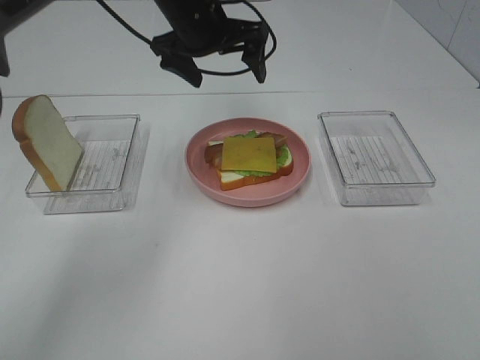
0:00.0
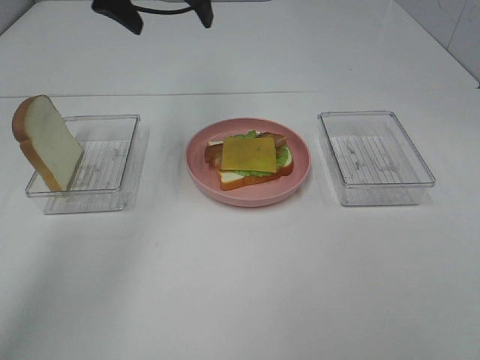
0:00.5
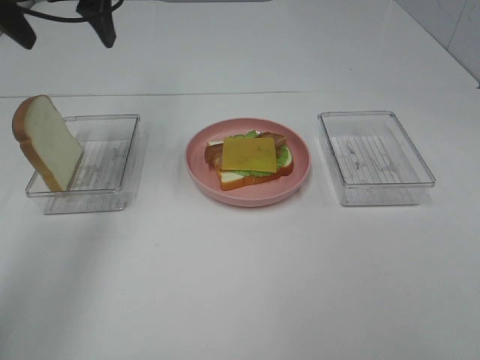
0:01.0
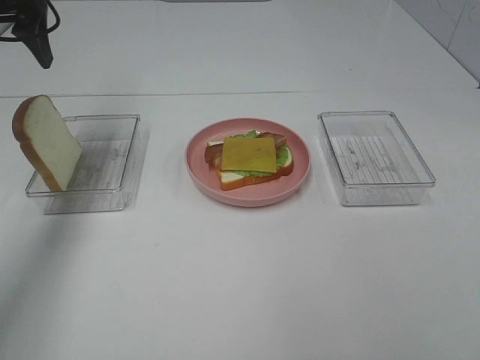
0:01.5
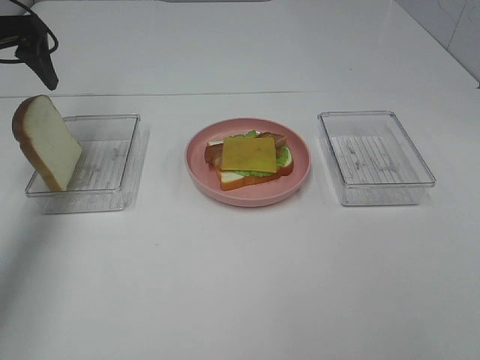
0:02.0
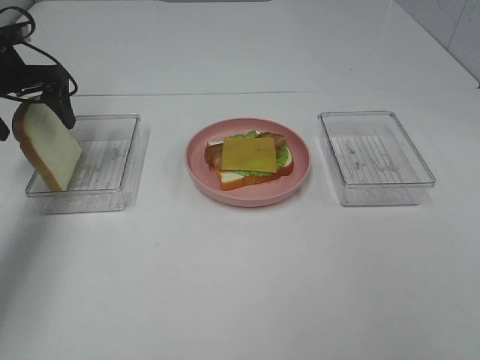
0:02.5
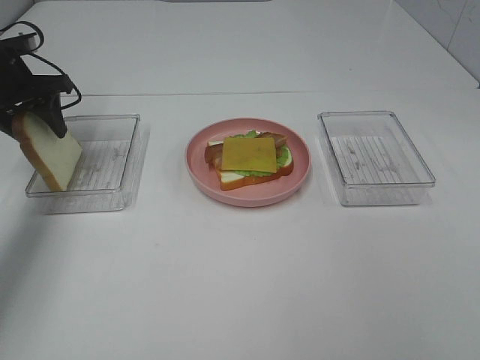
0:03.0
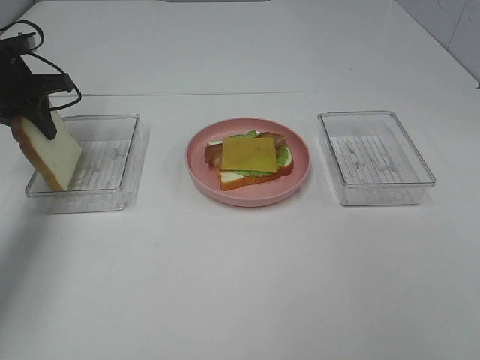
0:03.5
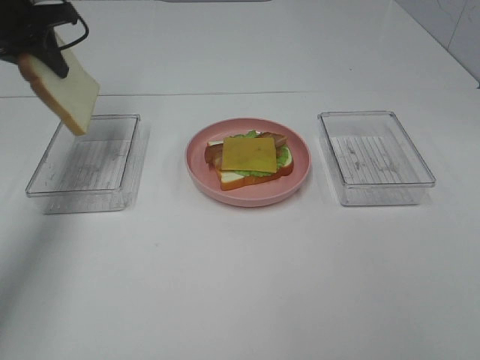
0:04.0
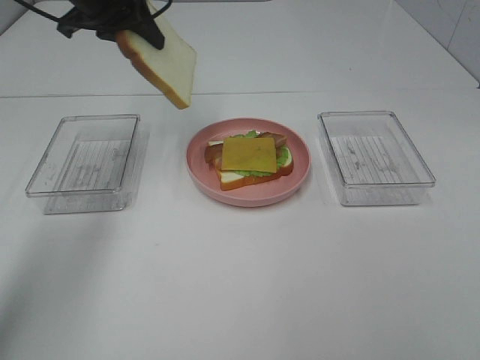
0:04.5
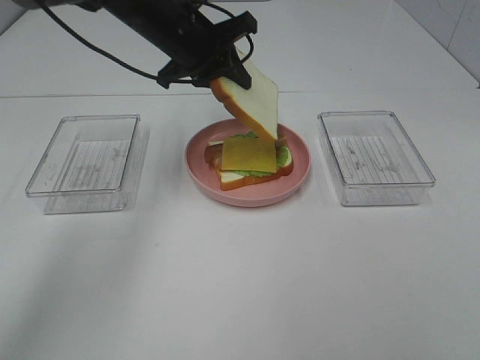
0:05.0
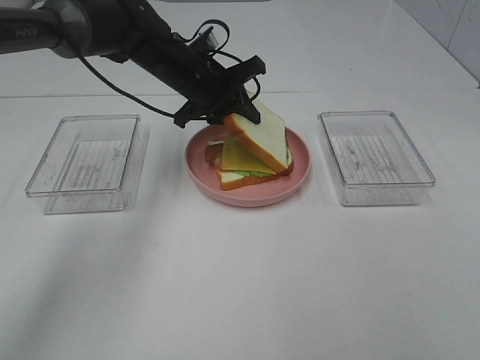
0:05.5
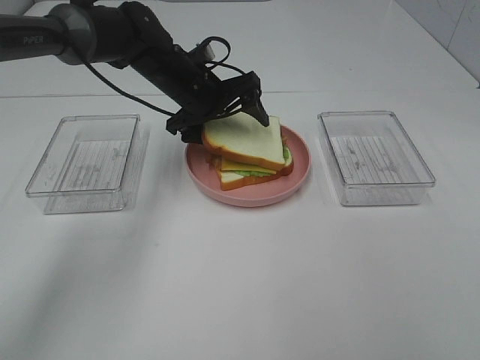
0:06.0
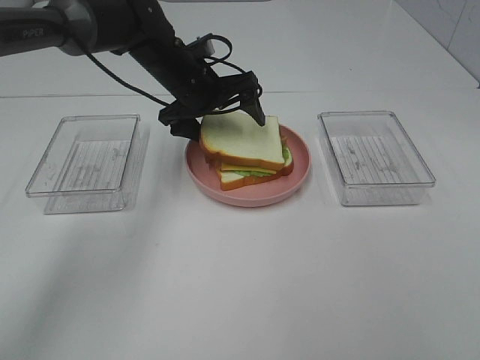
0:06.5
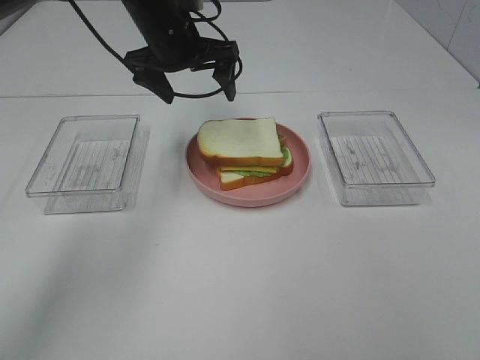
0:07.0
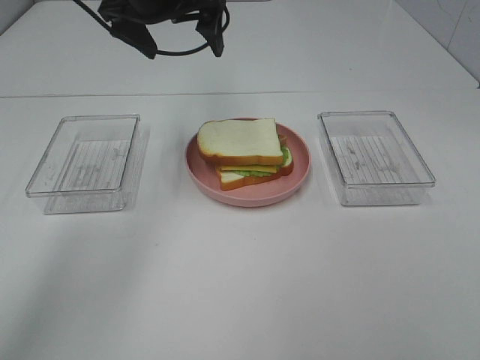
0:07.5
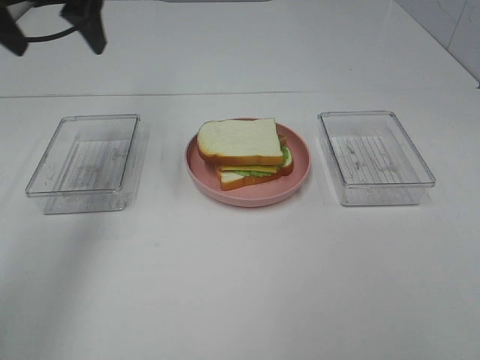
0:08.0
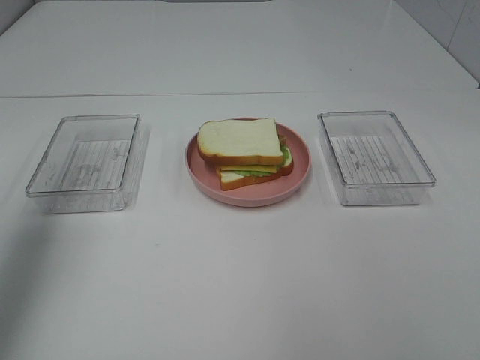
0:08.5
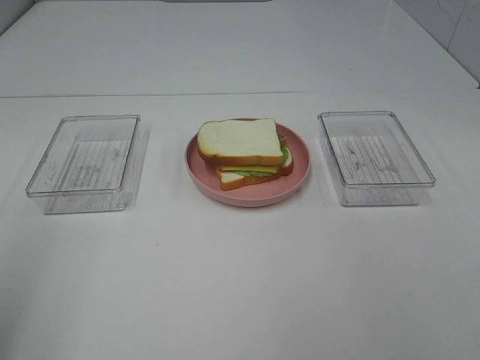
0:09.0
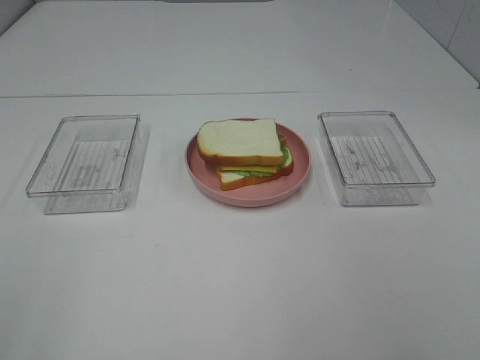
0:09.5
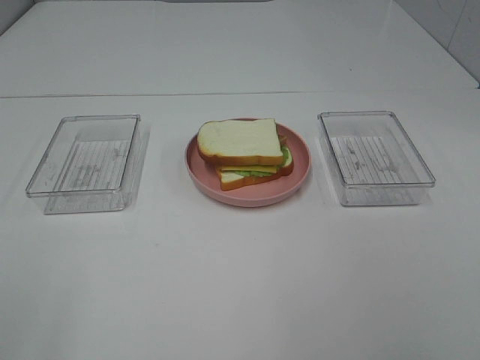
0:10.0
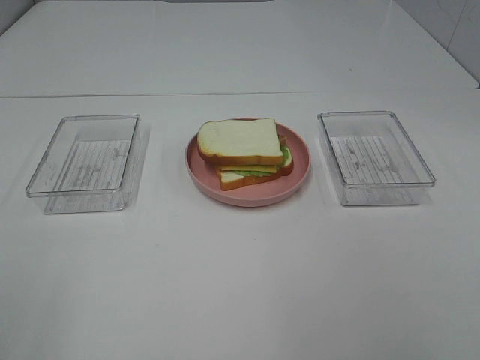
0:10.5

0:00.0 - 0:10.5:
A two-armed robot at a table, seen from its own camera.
Task of the whole recording: Make sandwiches.
Step, 0:00.0 - 0:03.5: Left hand:grab the bread slice.
Step, 0:04.0 - 0:06.5: Left hand:place the bread slice on the cheese slice.
0:00.0 - 0:02.0: The left gripper is displaced to the left by approximately 25 cm.
0:02.0 - 0:04.0: The left gripper moves about 10 cm downward and comes back, and closes up.
0:04.0 - 0:06.5: The left gripper shifts roughly 25 cm to the right and downward, and opens up.
0:06.5 - 0:08.5: The left gripper goes roughly 40 cm to the left, backward and upward.
0:08.5 - 0:10.5: The left gripper moves backward, approximately 25 cm.

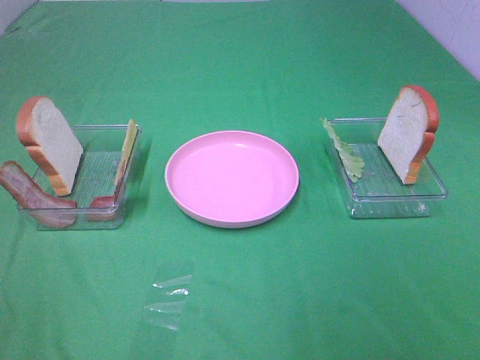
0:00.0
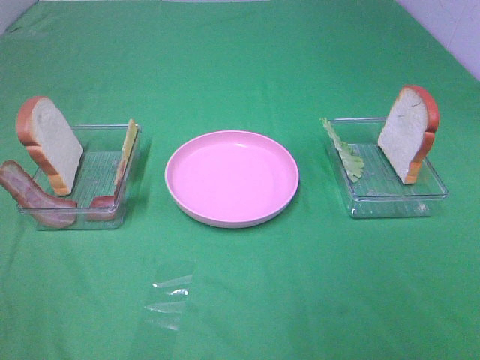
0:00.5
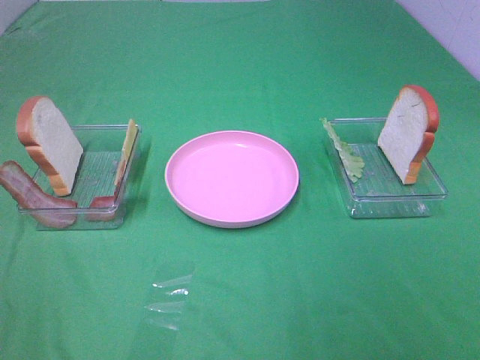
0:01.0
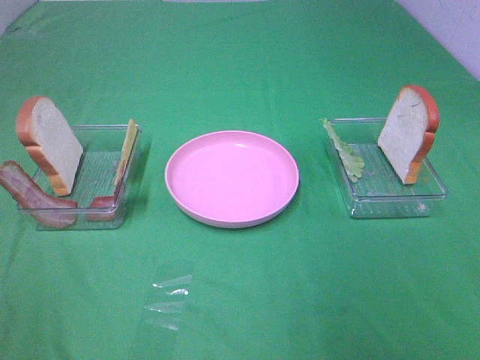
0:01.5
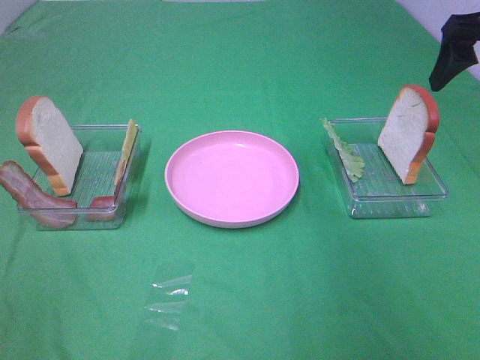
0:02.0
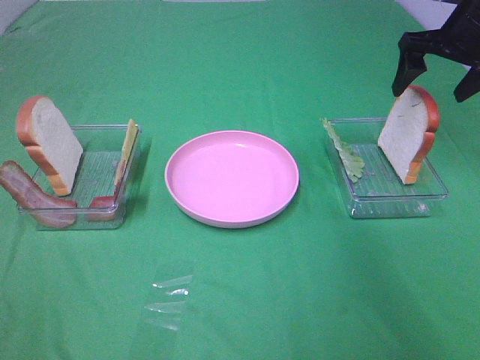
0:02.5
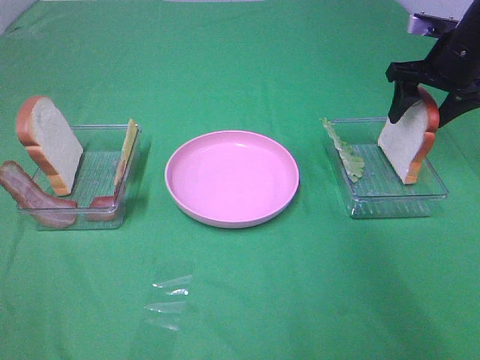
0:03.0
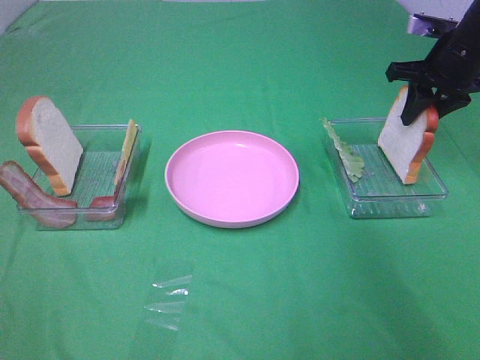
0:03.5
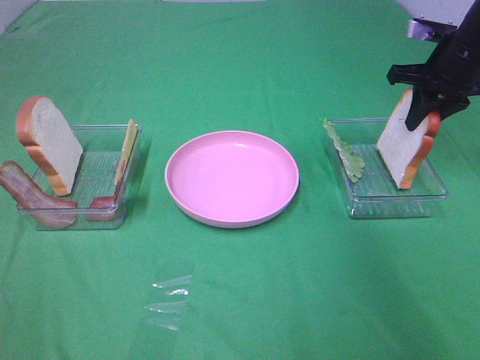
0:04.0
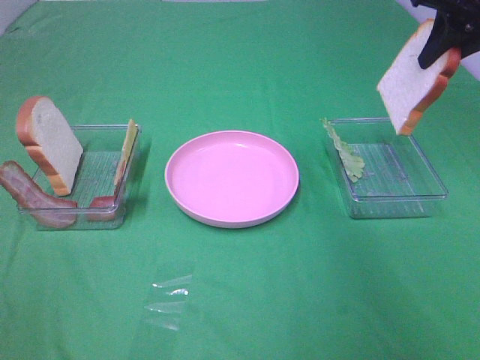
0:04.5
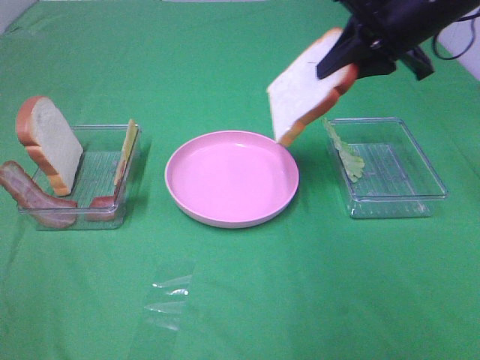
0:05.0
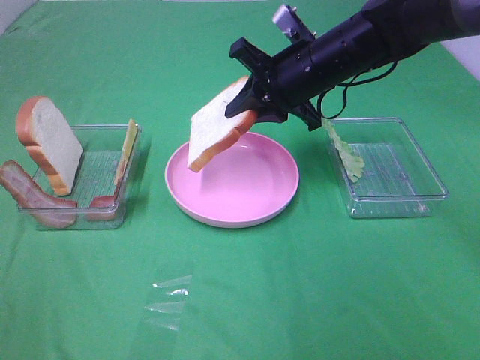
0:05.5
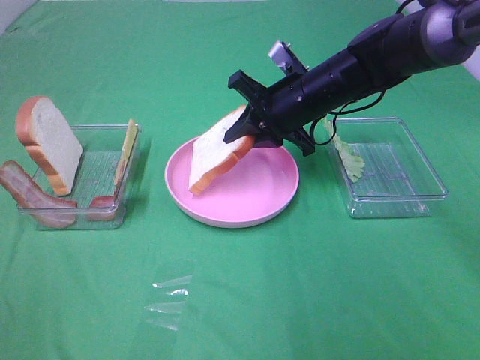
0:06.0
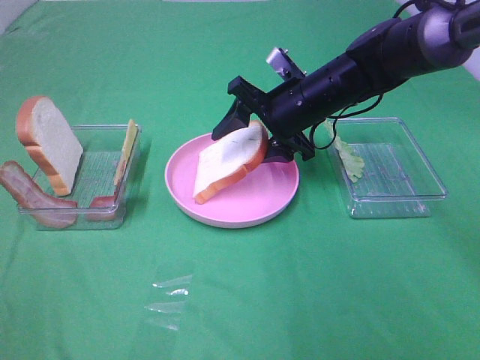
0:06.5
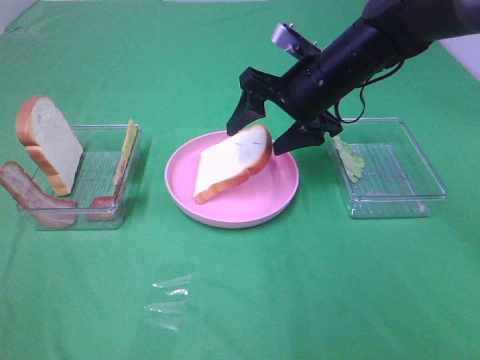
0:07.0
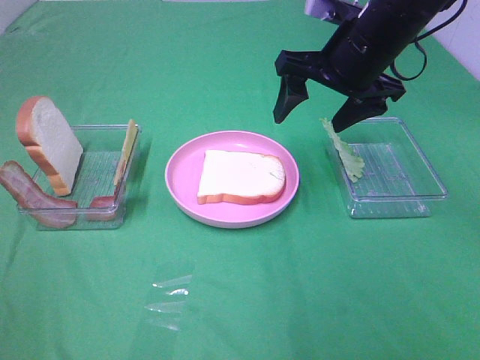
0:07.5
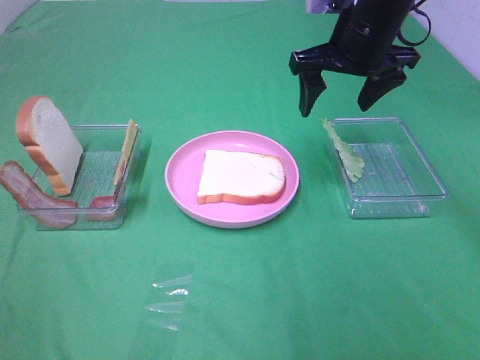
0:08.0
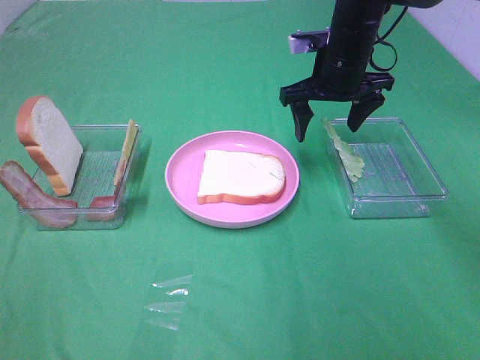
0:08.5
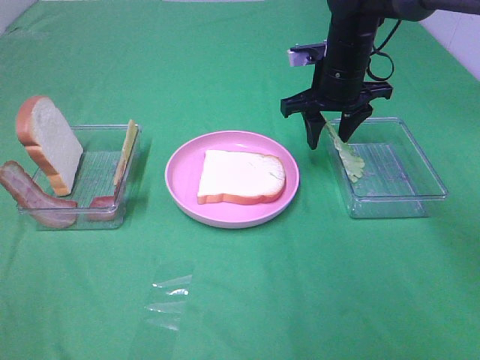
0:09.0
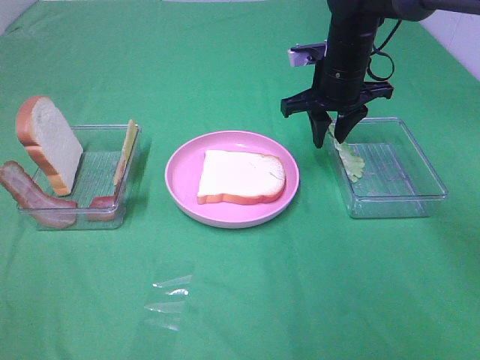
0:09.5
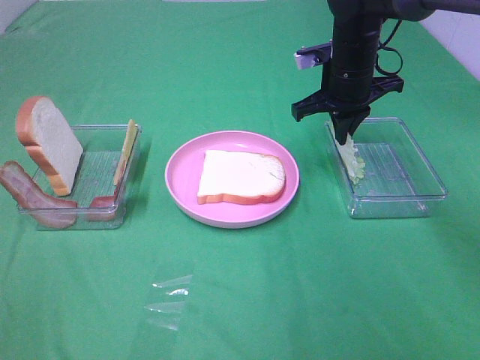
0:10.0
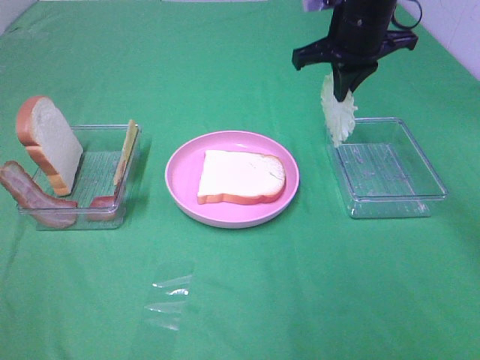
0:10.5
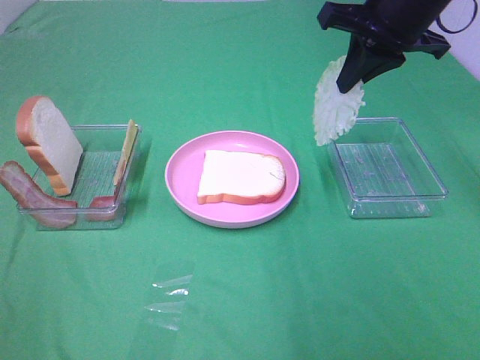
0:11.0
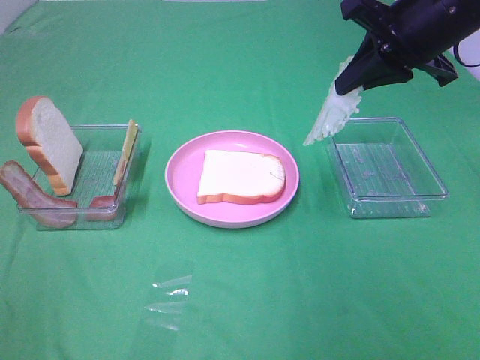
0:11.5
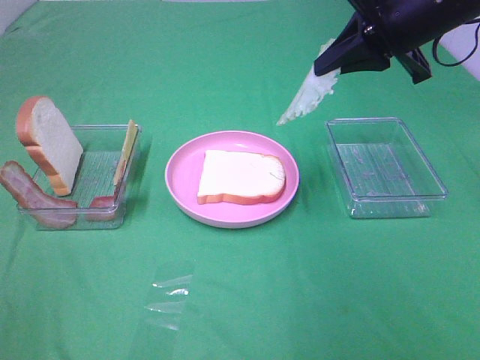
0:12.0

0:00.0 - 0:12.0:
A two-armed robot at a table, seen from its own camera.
Task of the whole recording: Make sandwiches.
Step, 0:00.0 - 0:03.5: Right hand:grab the bread slice.
Step, 0:04.0 - 0:07.0: Right hand:place the bread slice on the plate.
Step, 0:07.5 - 0:10.0: Right hand:grab the lettuce slice.
0:00.0 - 0:02.0: The right gripper shifts about 35 cm forward.
0:02.0 - 0:04.0: The right gripper is displaced downward and forward by approximately 10 cm, and closes up.
0:04.0 - 0:06.0: The right gripper heads to the left, covering approximately 20 cm.
0:06.0 - 0:08.0: The right gripper moves upward, some 10 cm, and opens.
0:08.0 - 0:10.0: The right gripper goes approximately 5 cm downward, and closes.
0:10.0 - 0:12.0: The right gripper is displaced upward and backward by about 15 cm.

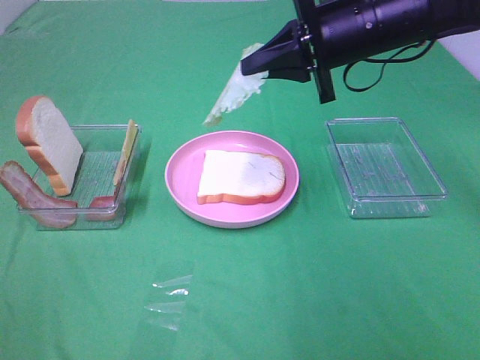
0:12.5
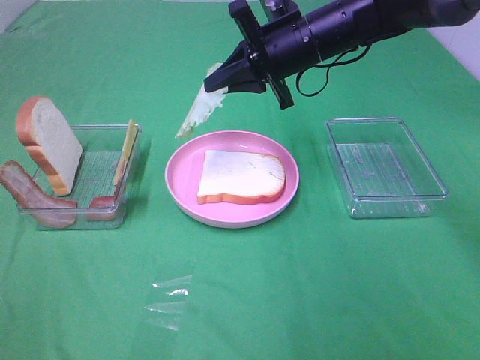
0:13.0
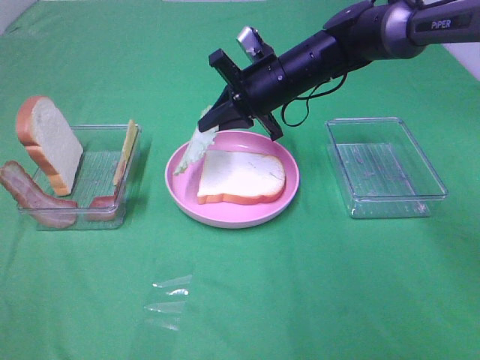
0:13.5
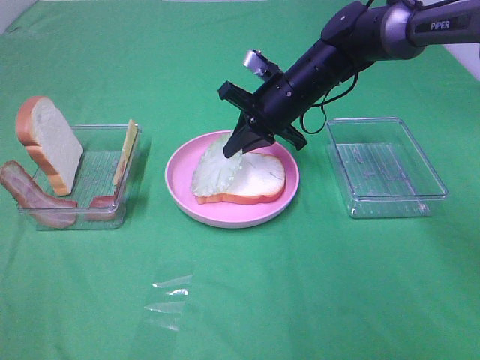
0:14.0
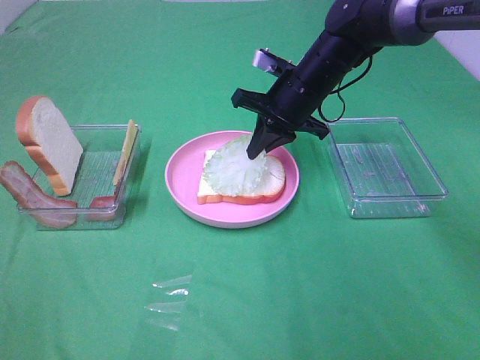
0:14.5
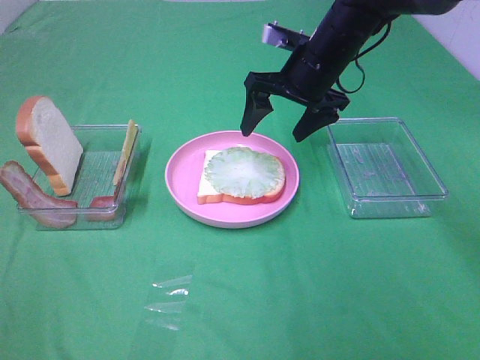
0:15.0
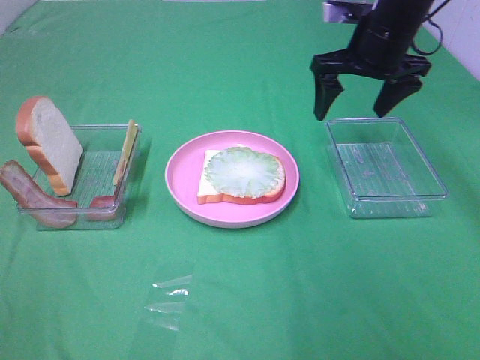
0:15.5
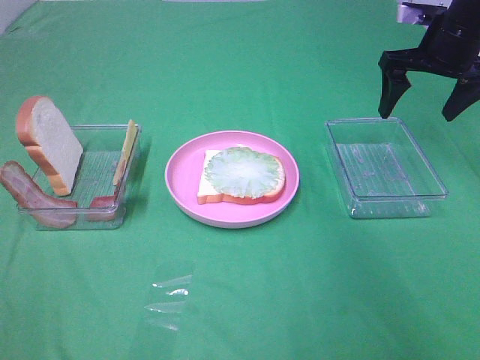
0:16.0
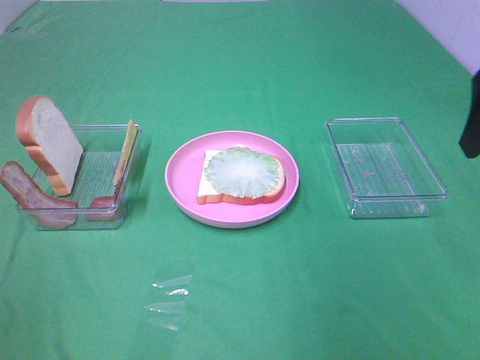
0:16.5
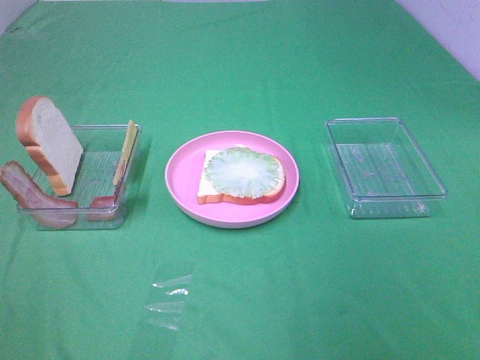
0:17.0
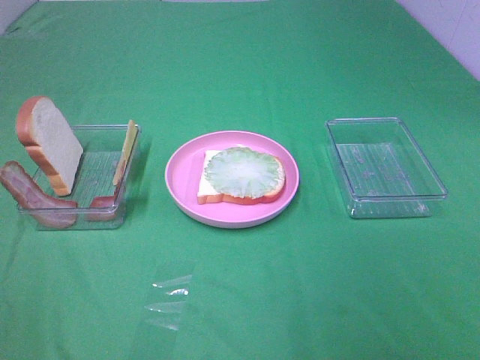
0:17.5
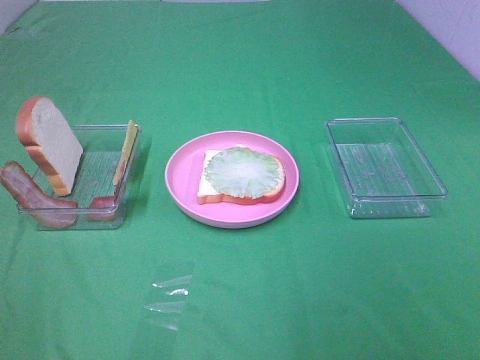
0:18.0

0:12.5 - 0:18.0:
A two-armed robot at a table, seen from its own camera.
Task of the whole recording: Make sandwiches.
Step, 0:12.5 - 0:14.5: Right hand:place the lettuce slice on the bread slice.
0:12.5 - 0:14.5: The right gripper moves downward and forward, about 10 cm.
0:14.5 - 0:16.0: The right gripper heads to the right and upward, covering about 20 cm, and opens its fingers.
0:16.0 - 0:18.0: The right gripper is displaced backward by approximately 40 cm.
